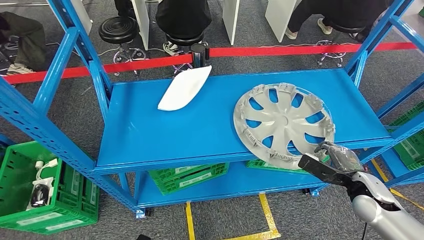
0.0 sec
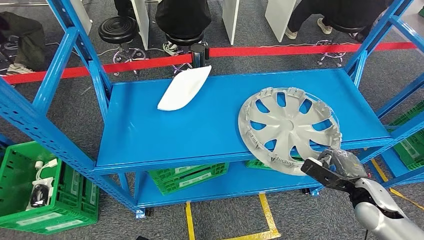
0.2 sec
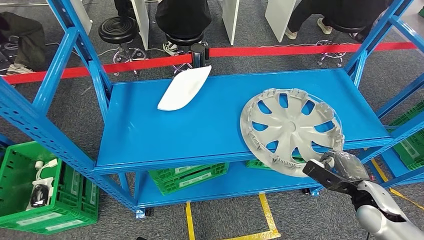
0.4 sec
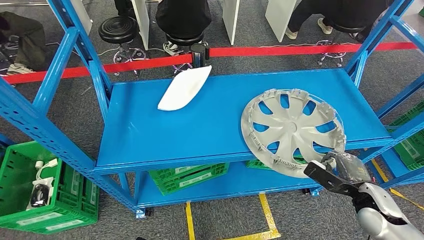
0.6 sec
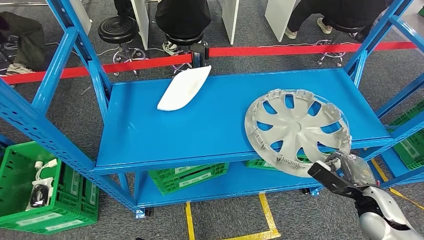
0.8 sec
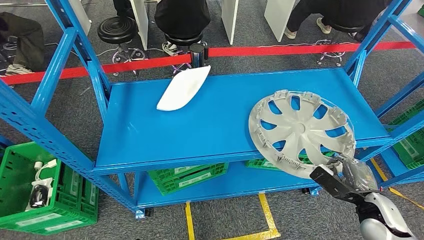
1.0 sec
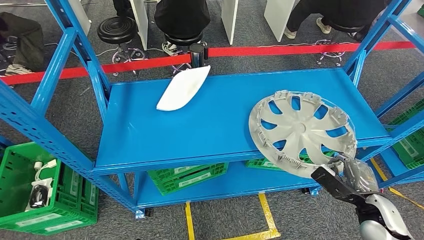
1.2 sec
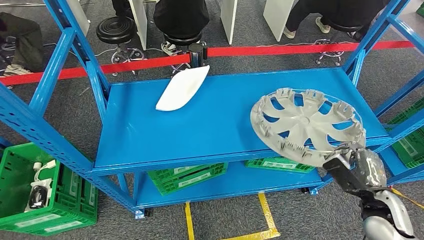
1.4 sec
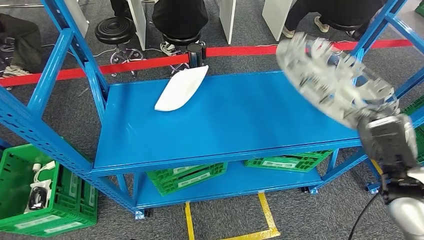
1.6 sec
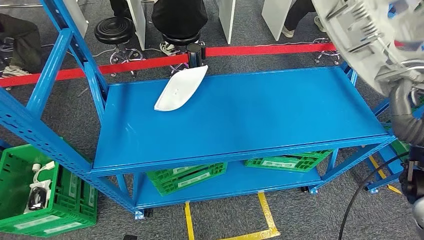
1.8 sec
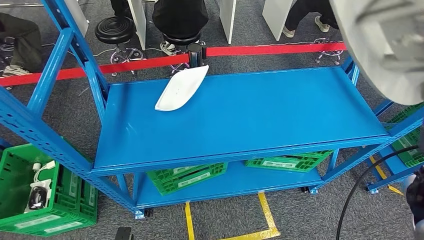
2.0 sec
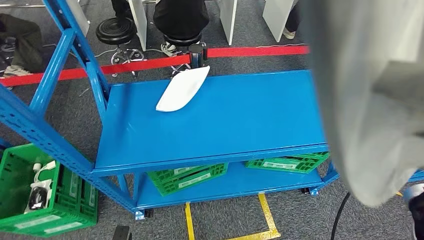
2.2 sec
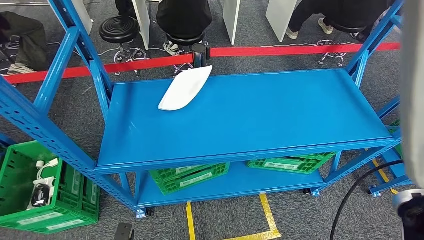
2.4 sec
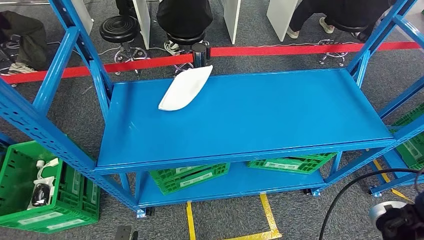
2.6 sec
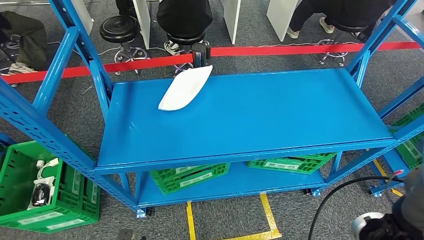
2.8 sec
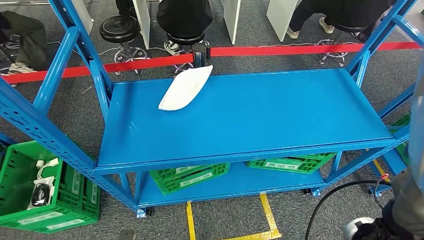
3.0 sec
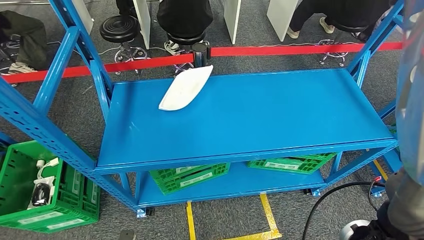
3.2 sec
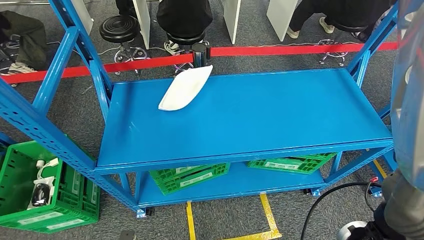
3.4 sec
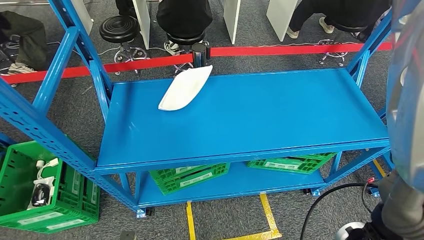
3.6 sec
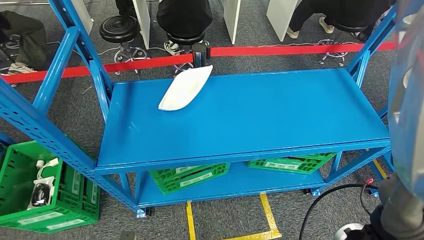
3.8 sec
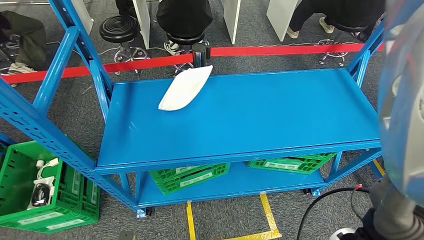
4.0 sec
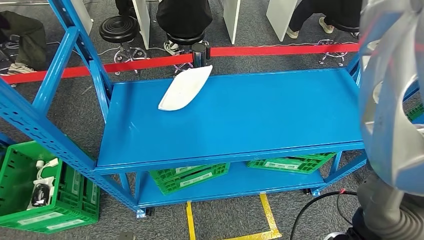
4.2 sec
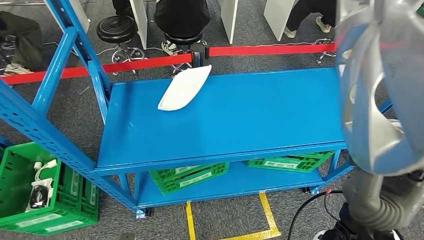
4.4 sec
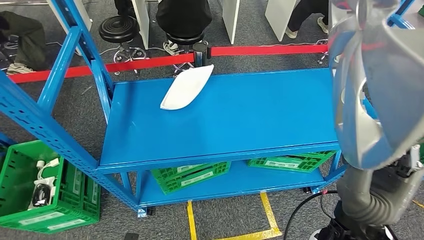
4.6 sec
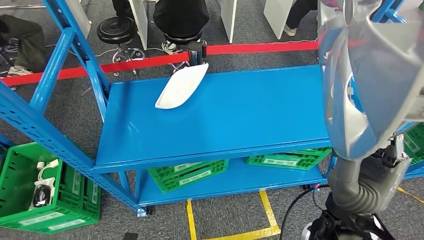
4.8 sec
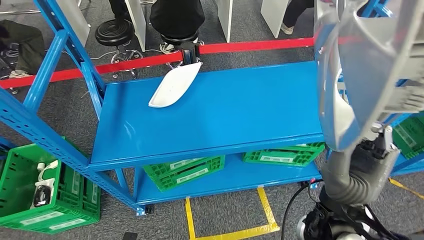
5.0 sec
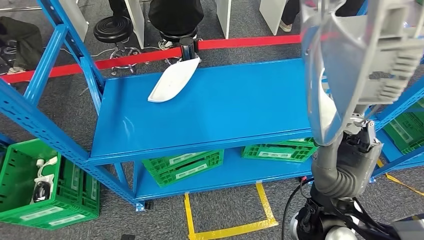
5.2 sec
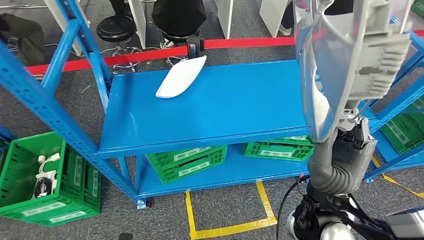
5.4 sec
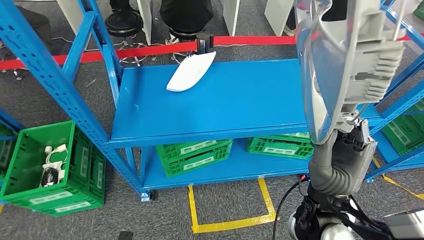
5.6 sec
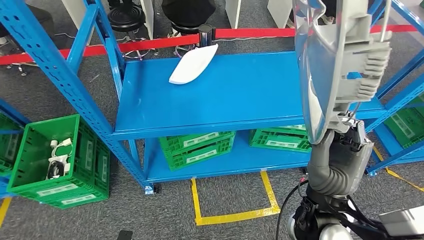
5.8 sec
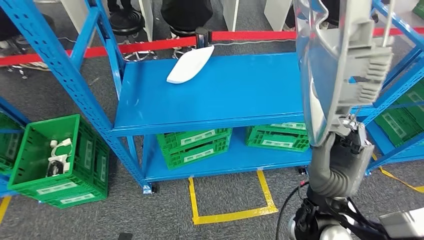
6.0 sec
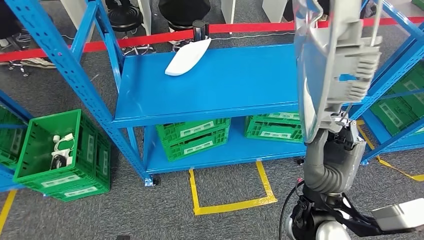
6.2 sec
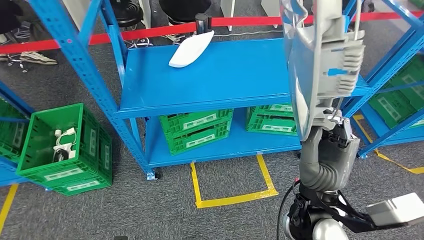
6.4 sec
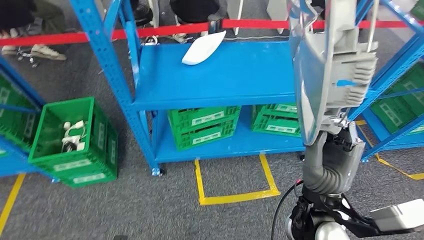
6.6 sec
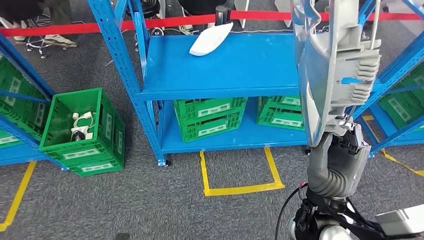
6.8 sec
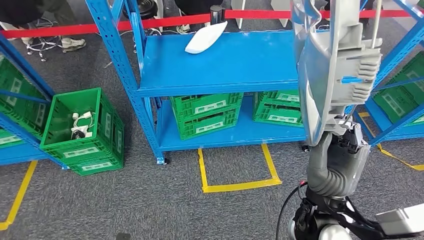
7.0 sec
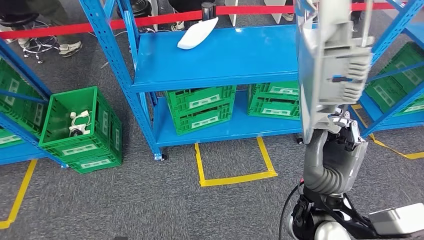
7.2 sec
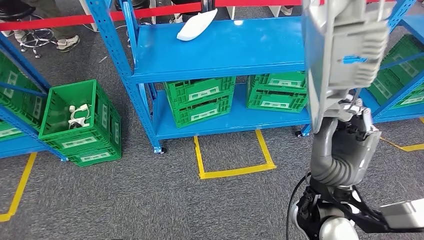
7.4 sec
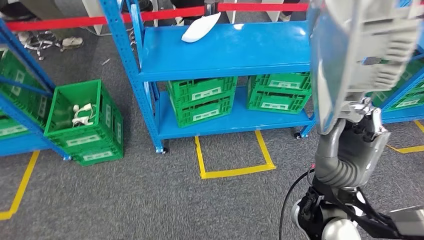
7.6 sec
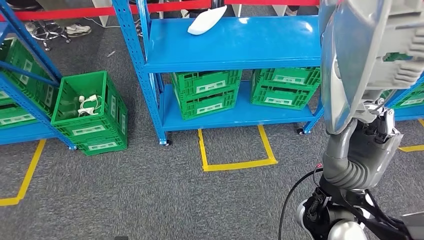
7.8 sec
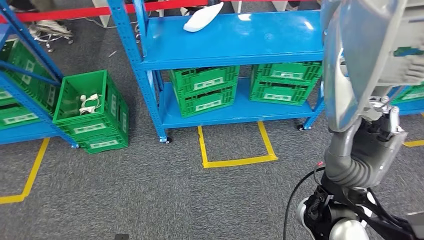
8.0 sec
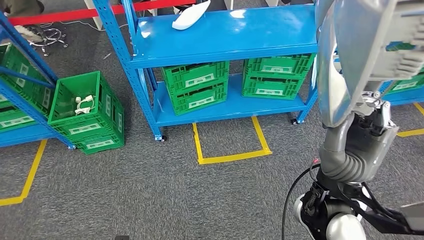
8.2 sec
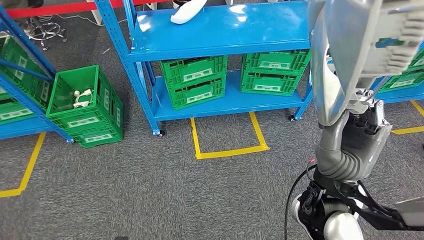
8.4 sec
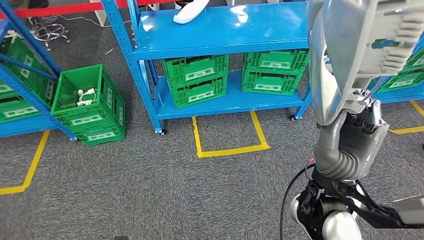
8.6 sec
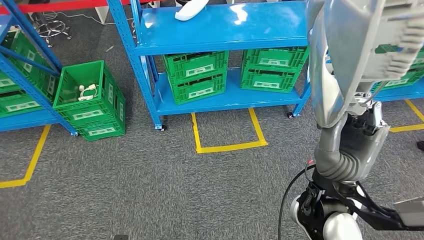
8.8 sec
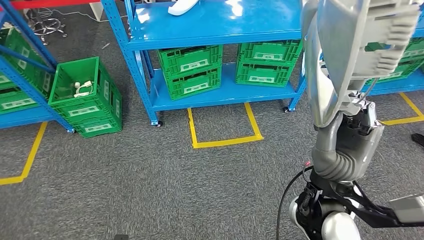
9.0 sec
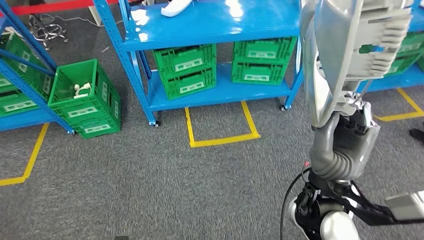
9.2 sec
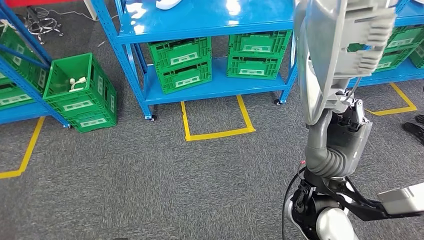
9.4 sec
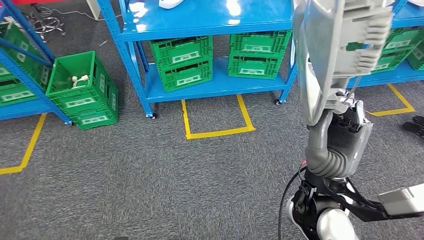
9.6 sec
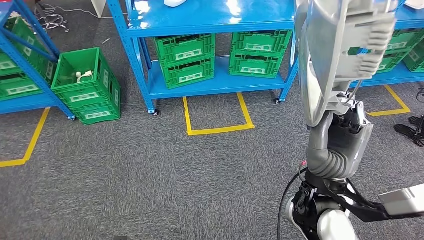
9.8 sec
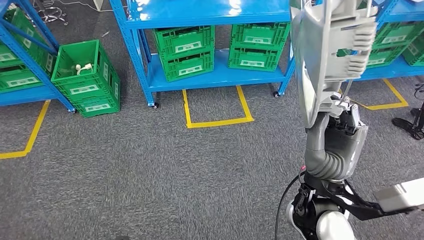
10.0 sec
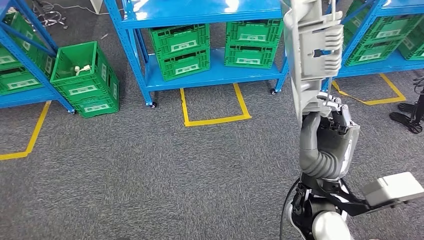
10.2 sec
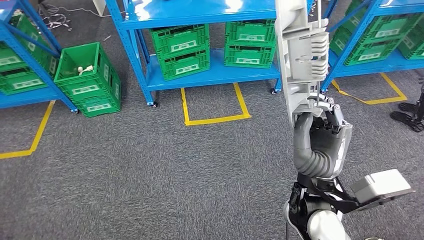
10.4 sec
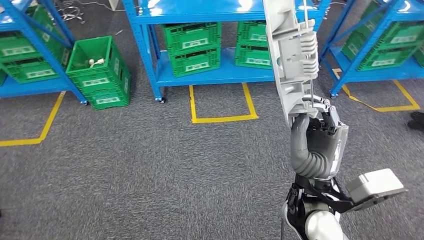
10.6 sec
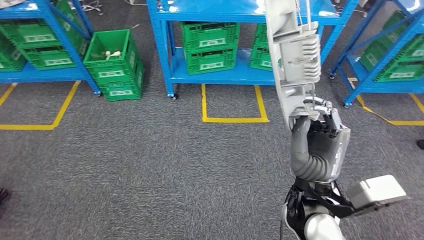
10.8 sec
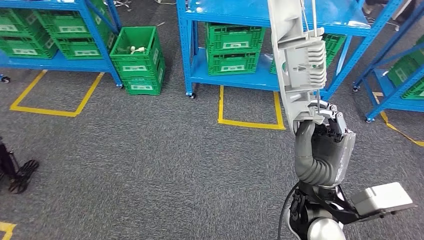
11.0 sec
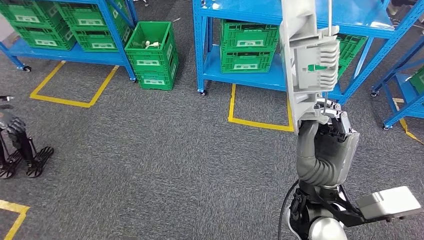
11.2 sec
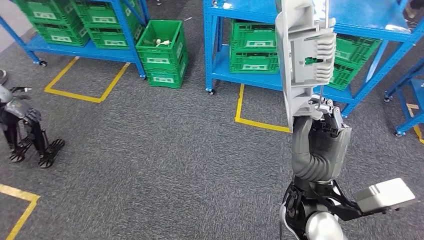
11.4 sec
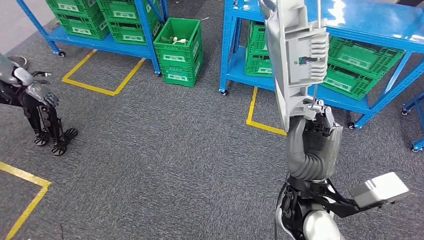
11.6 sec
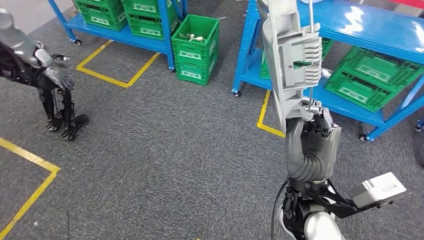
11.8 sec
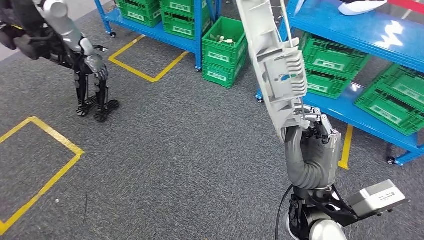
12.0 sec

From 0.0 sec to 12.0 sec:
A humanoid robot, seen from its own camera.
Step, from 0.0 sec to 2.4 sec: Pick up the small parts from the shelf.

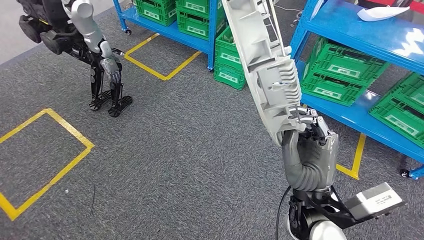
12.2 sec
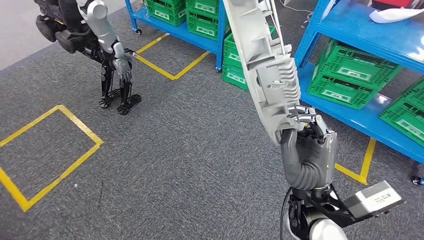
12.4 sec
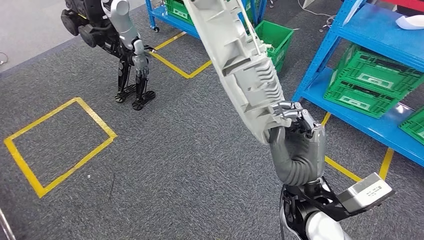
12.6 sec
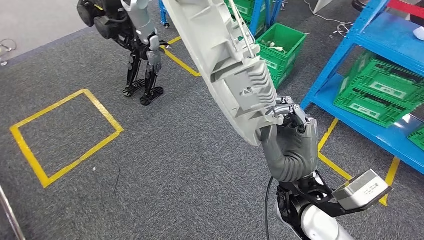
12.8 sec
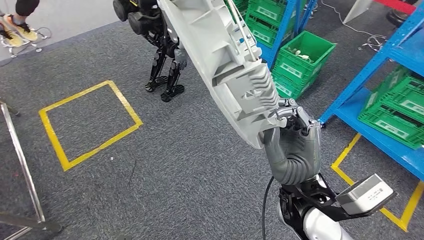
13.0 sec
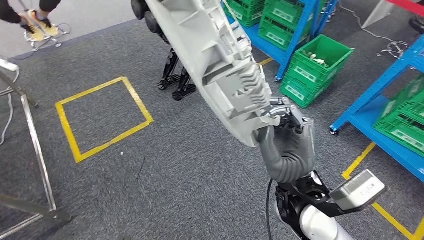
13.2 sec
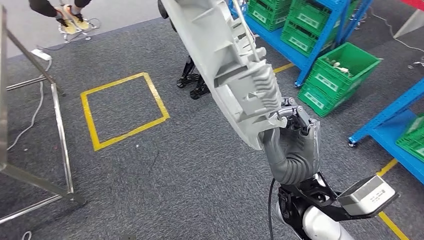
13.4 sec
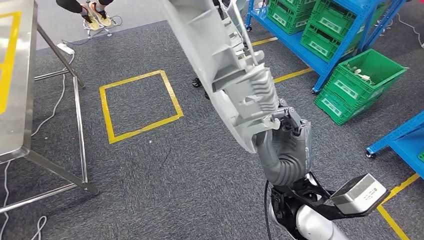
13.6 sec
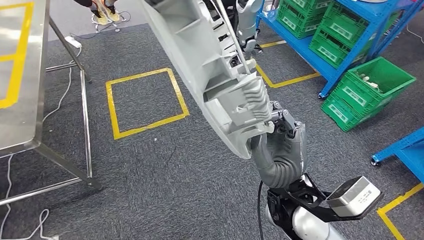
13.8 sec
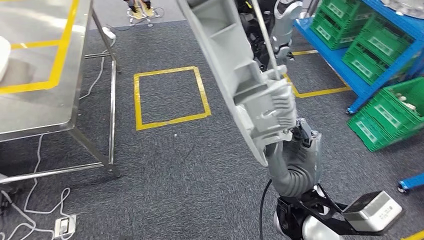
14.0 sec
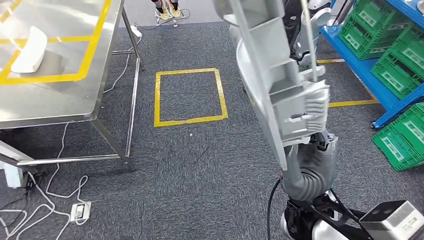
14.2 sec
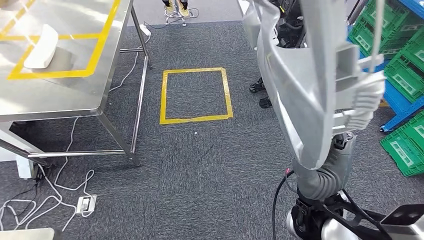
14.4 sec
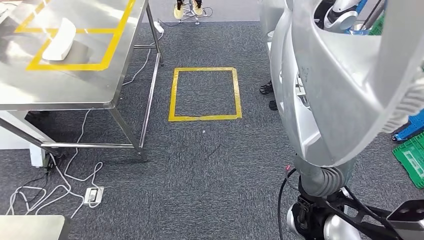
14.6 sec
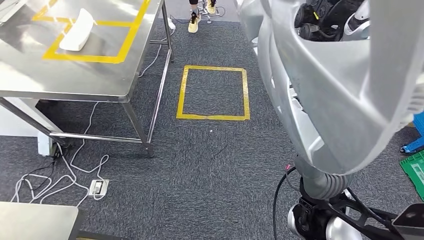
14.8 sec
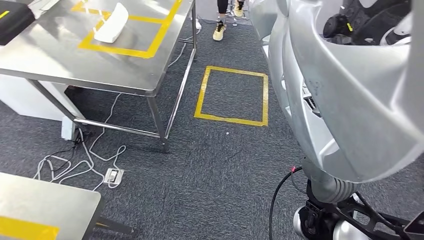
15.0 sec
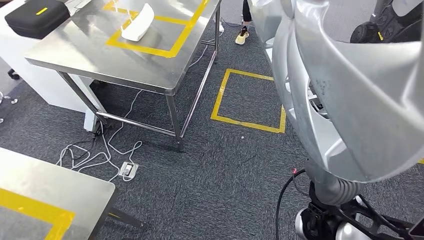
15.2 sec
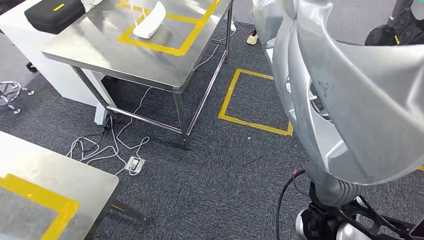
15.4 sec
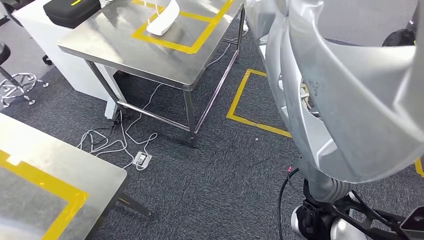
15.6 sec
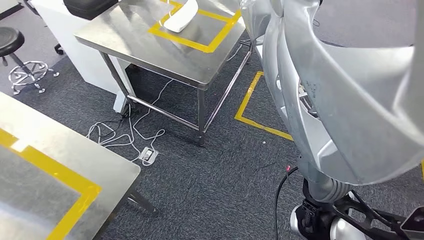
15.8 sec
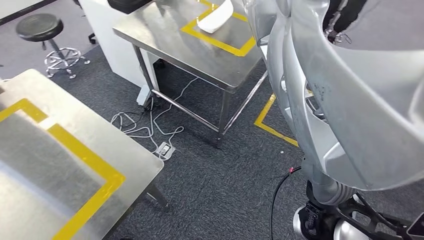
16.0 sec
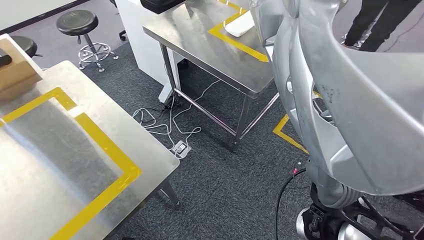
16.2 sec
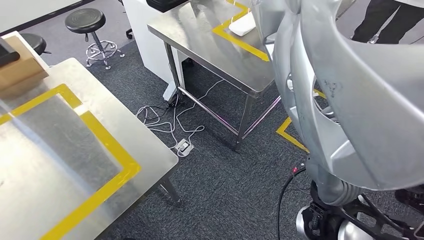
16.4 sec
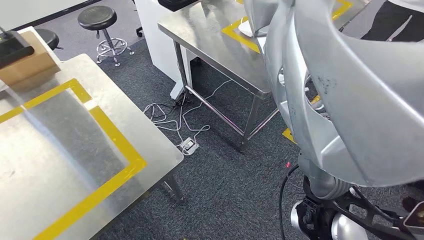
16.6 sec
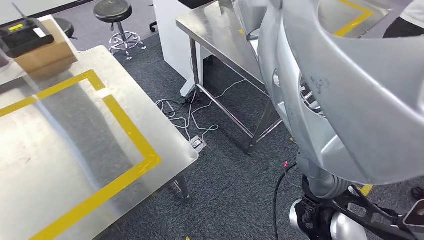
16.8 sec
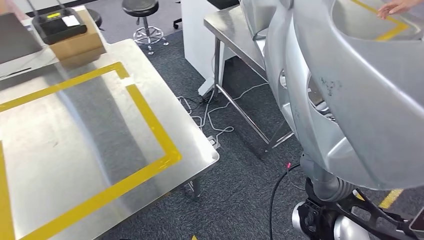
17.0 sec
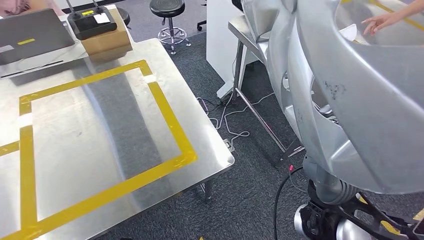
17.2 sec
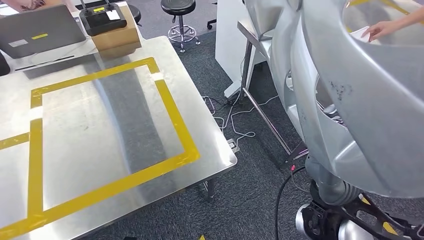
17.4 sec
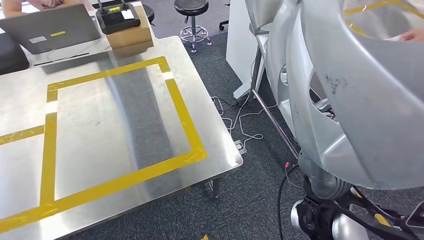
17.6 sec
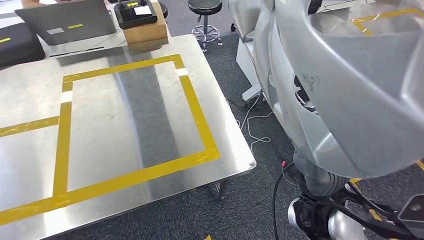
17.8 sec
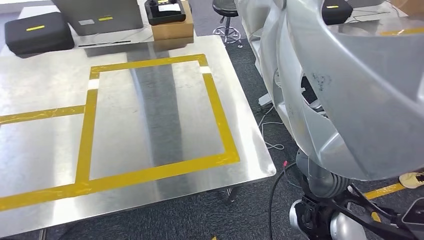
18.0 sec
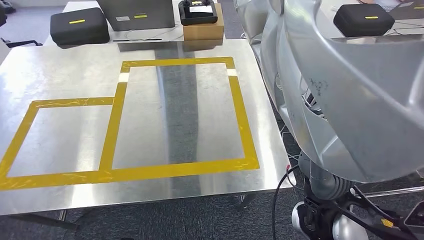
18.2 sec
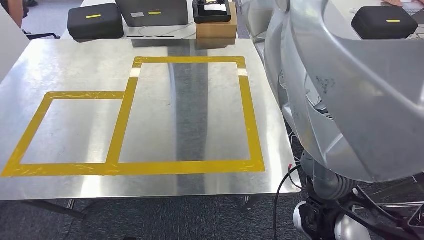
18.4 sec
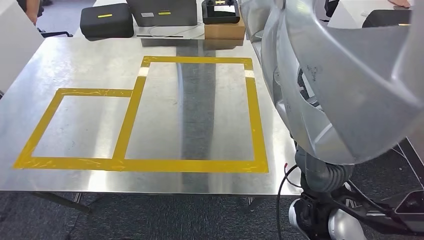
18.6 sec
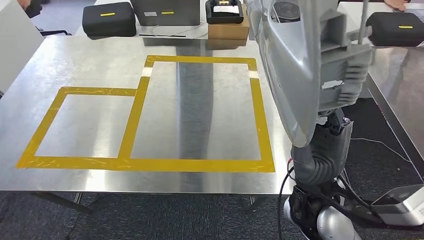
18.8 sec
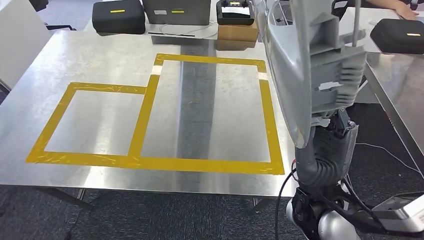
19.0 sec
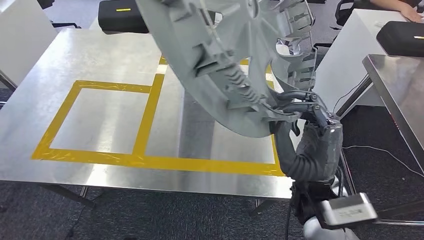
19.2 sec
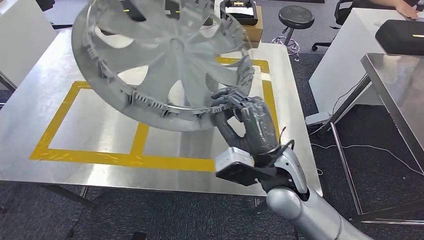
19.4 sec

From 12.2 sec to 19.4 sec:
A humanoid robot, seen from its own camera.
Step, from 12.2 sec to 18.8 sec: Move the small parts to the workbench.
